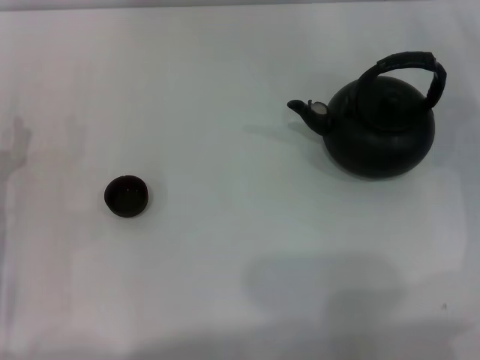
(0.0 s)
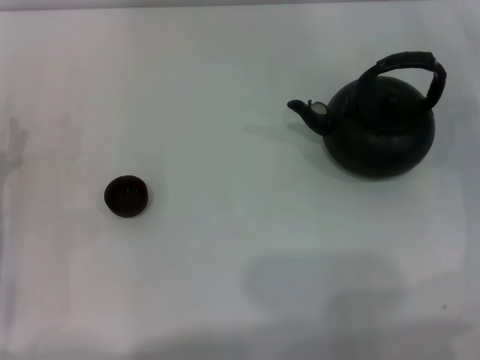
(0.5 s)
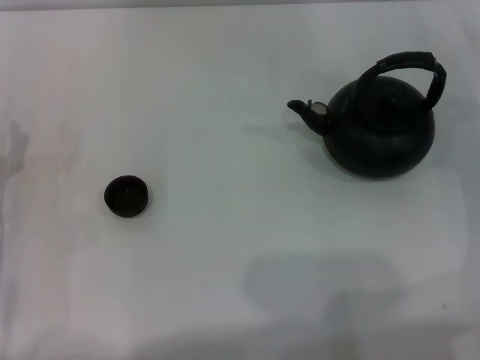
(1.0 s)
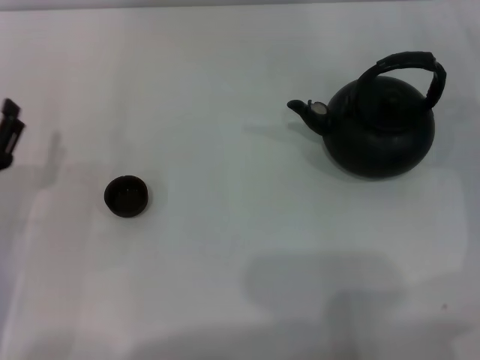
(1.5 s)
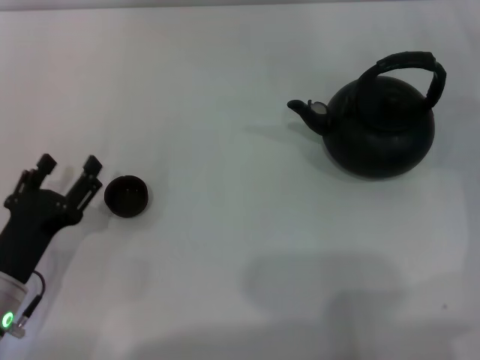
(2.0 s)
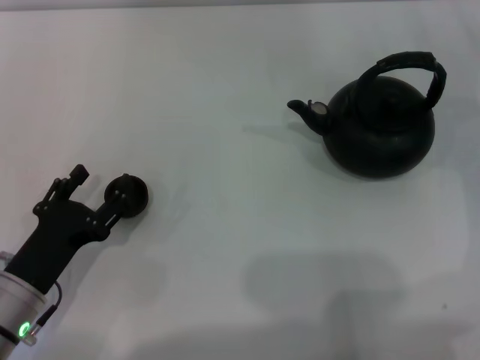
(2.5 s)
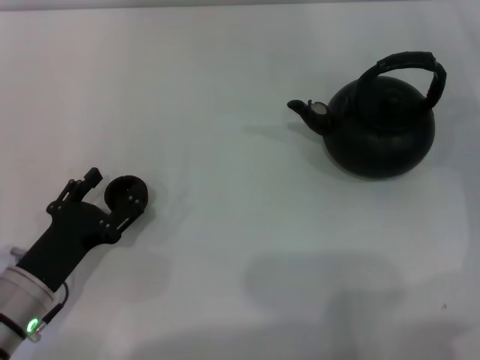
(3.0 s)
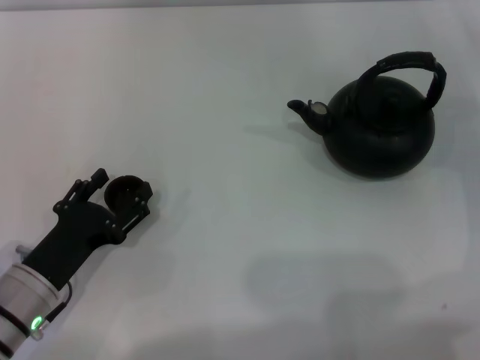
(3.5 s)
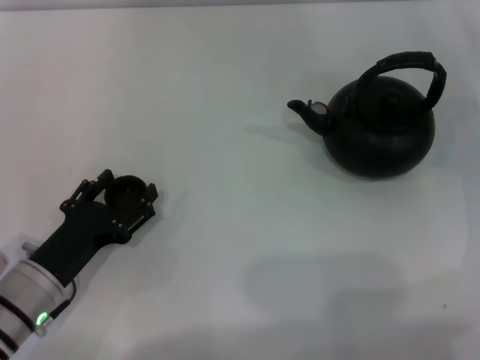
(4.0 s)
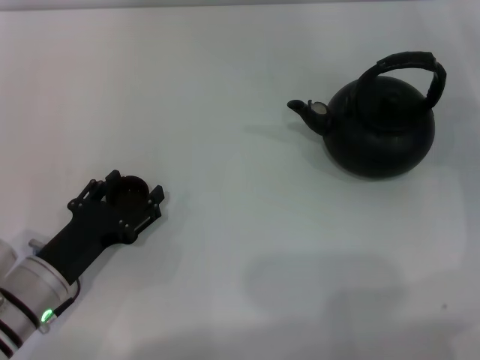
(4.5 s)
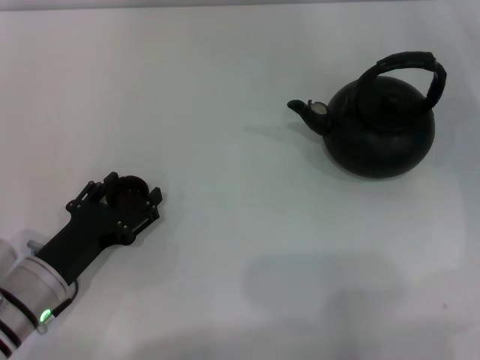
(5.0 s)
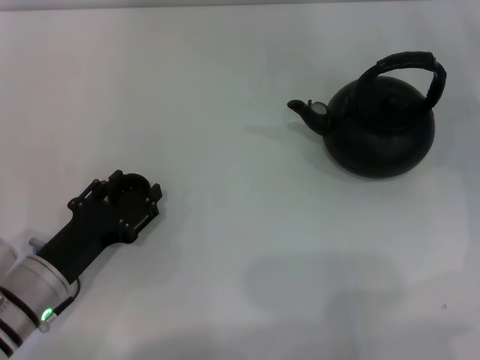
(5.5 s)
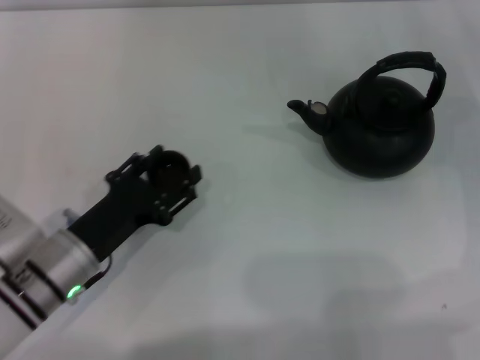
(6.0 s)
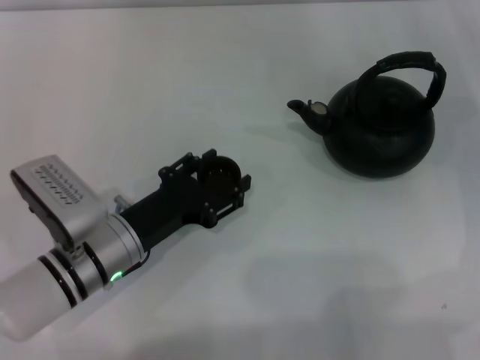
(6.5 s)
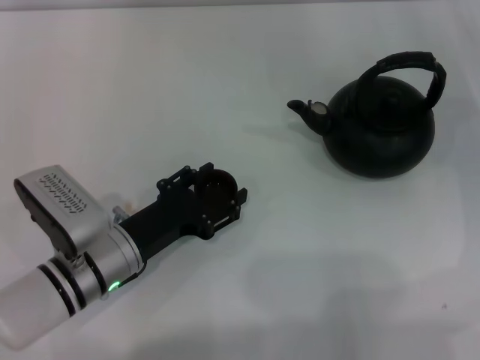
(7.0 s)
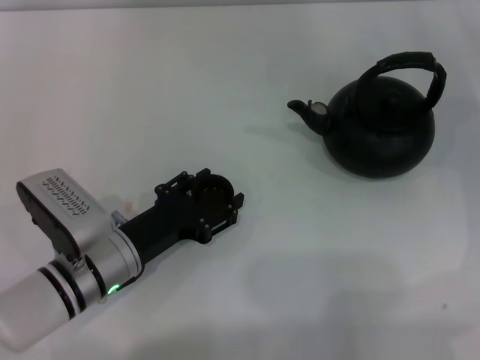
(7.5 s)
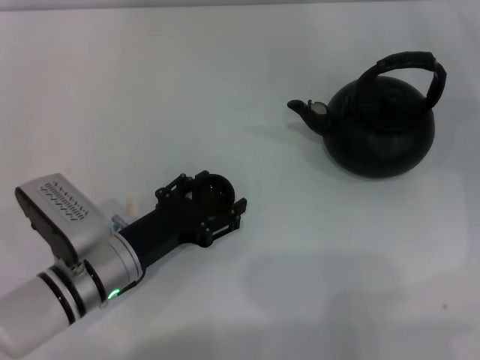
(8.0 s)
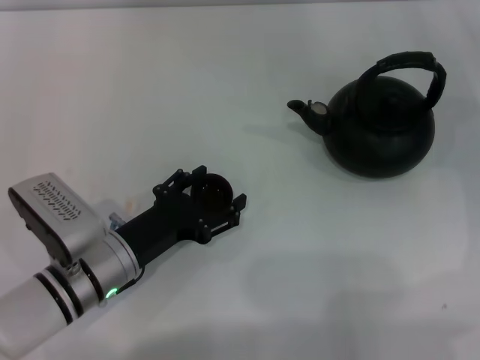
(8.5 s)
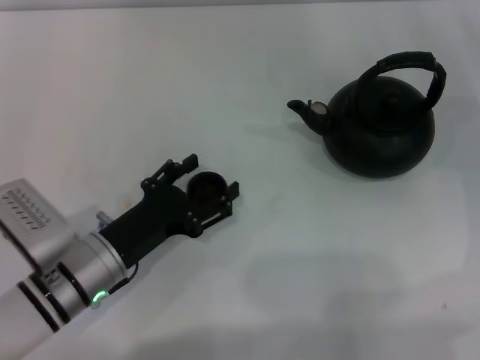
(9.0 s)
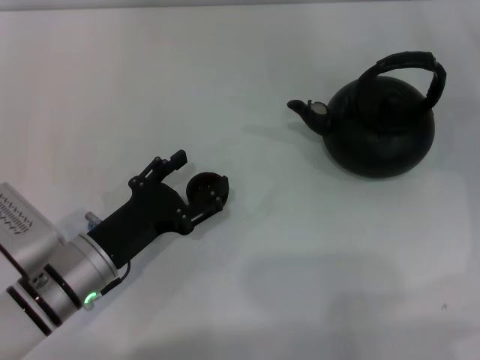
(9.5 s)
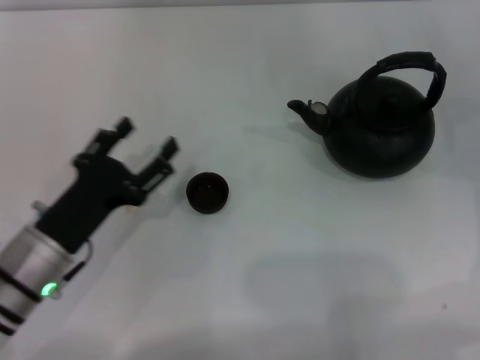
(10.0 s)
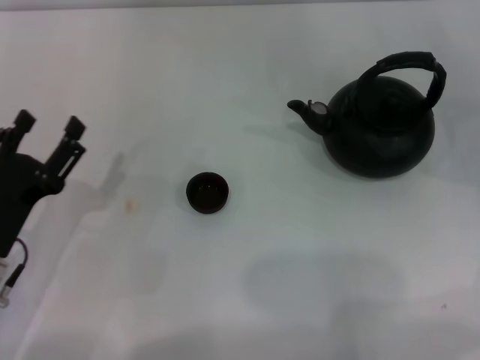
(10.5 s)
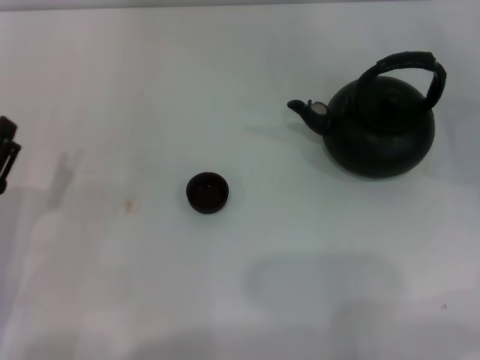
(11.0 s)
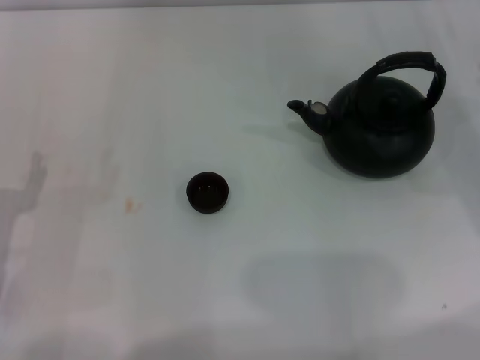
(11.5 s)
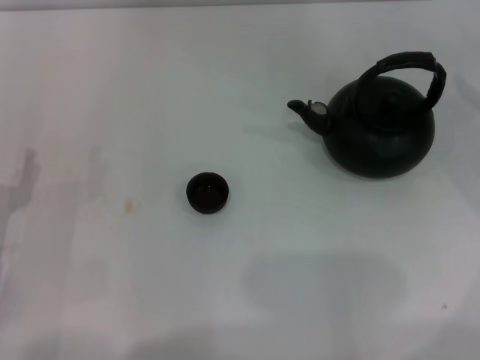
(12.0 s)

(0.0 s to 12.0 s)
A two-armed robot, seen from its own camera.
Task of the whole recording: Grasp the handle of the teapot with one hand and pour tea into the teacup.
Step, 0.0 s - 5.5 s: Pick up the teacup with the left gripper.
Step, 6.0 s - 9.5 s: Place the teacup in the center of view with the left gripper.
0.0 s - 2.0 s: The left gripper travels backward by roughly 5 cm.
2.0 s - 4.0 s: The grippers stay close to where they were, moving slightly.
4.0 s - 6.0 s: The left gripper closes its fingers.
6.0 s - 8.0 s: The left gripper opens.
8.0 s - 10.0 s: The left gripper ends up some 5 cm from where it was, and opens up.
10.0 s - 12.0 s: The right gripper heads upward, covering some 10 cm, while the left gripper goes about 10 cm to the left.

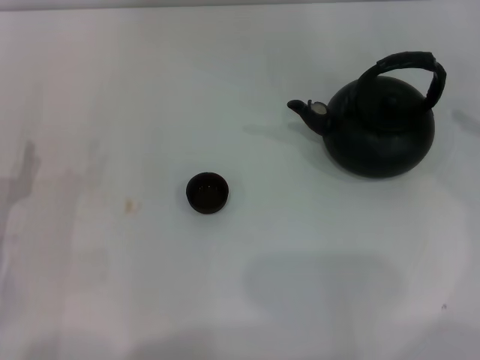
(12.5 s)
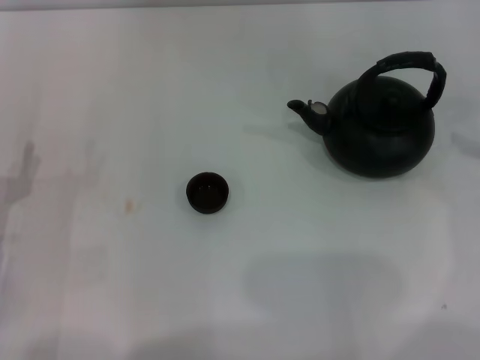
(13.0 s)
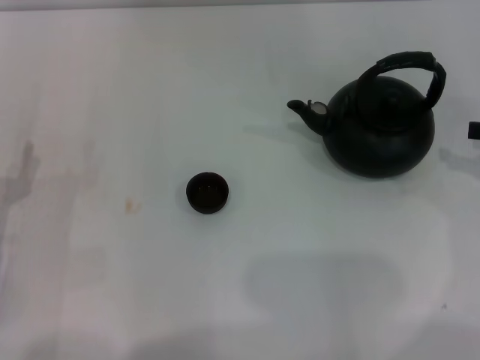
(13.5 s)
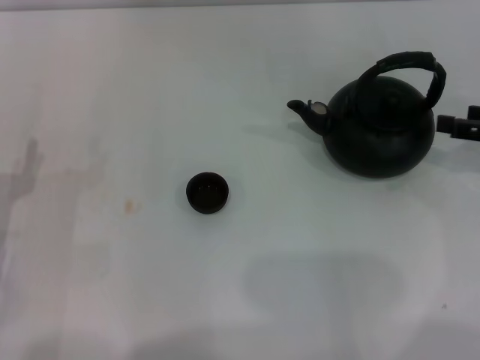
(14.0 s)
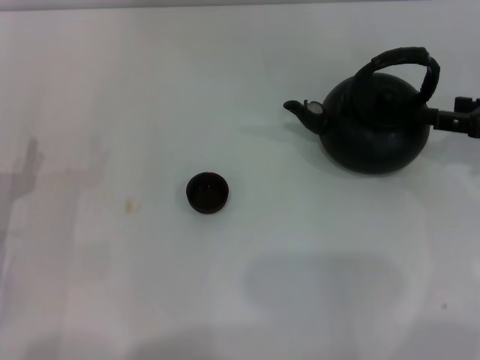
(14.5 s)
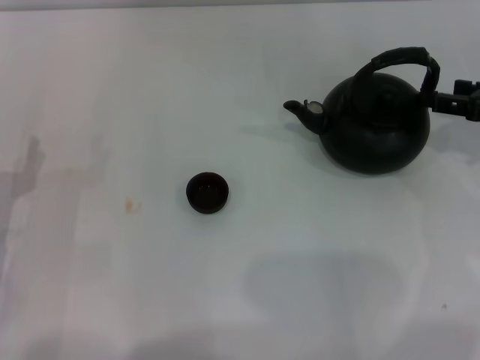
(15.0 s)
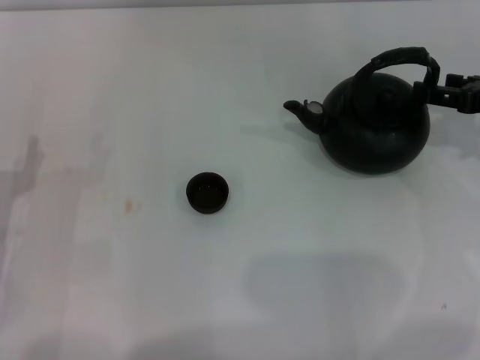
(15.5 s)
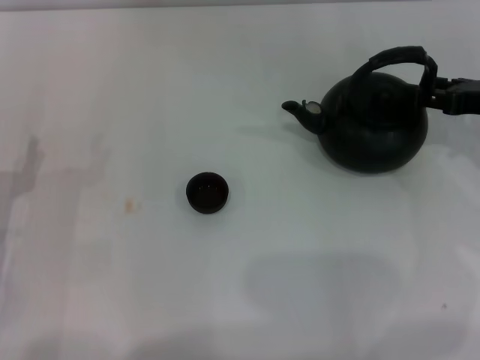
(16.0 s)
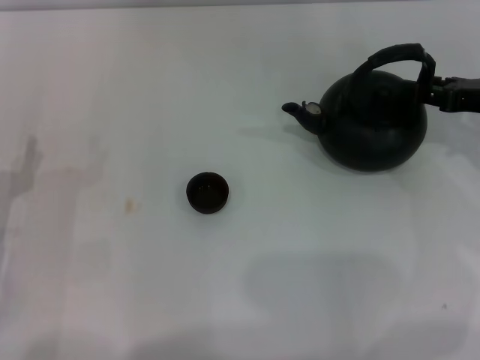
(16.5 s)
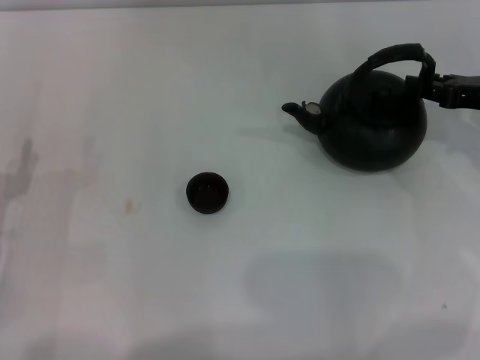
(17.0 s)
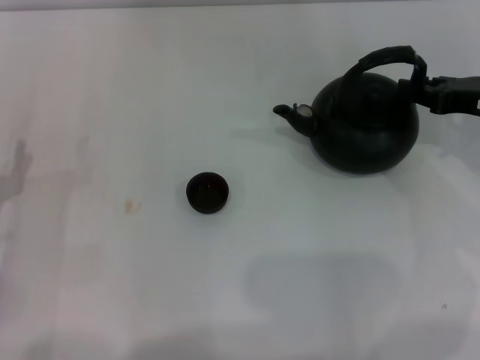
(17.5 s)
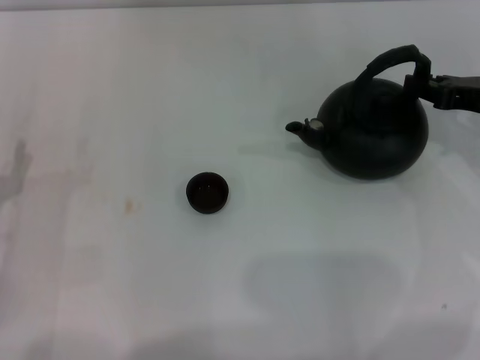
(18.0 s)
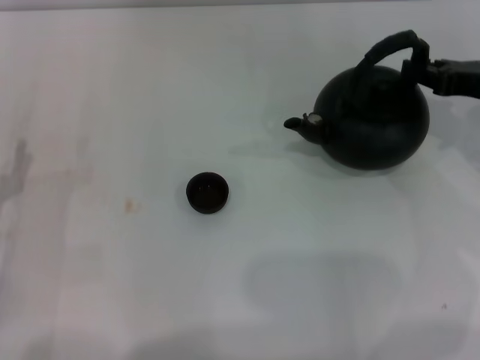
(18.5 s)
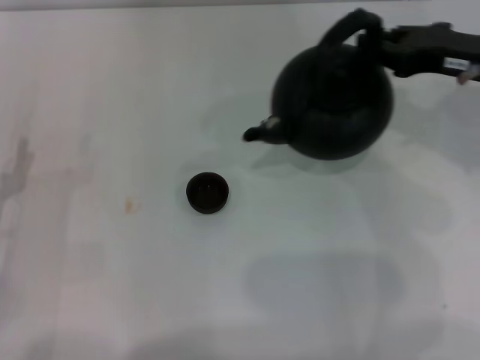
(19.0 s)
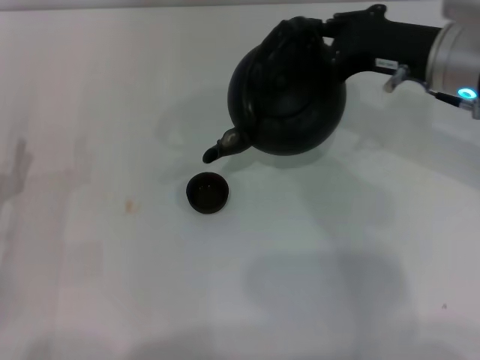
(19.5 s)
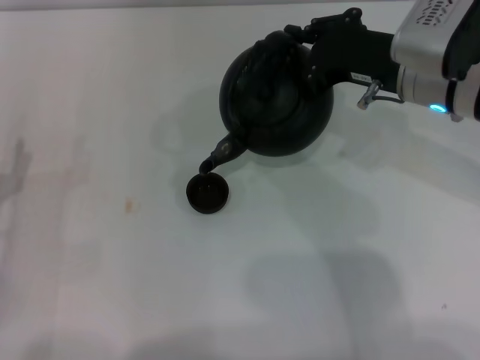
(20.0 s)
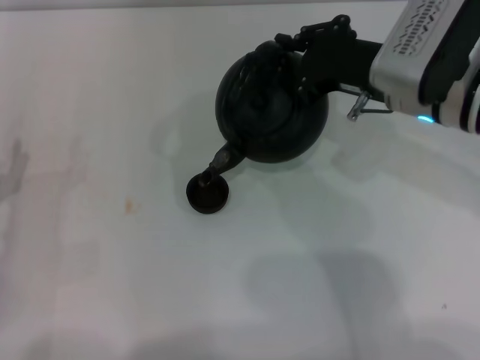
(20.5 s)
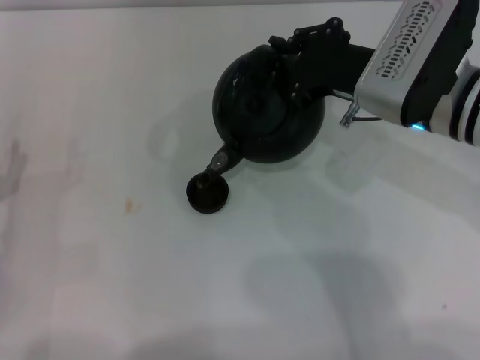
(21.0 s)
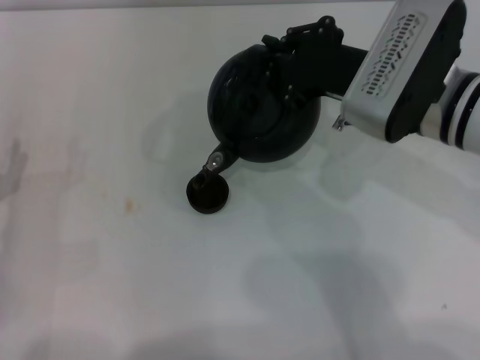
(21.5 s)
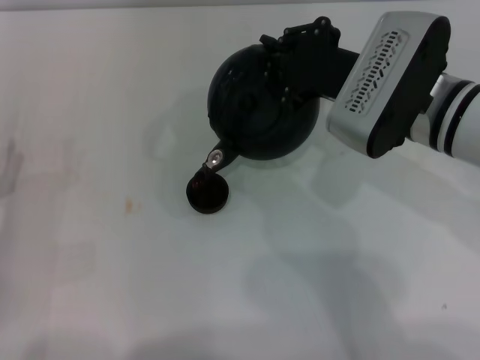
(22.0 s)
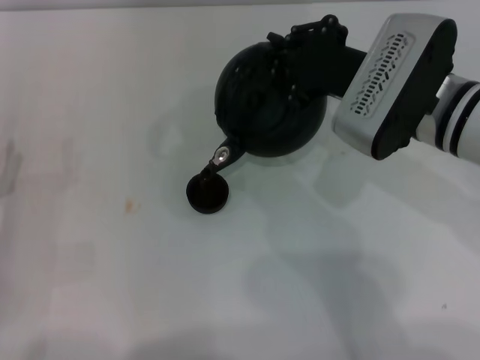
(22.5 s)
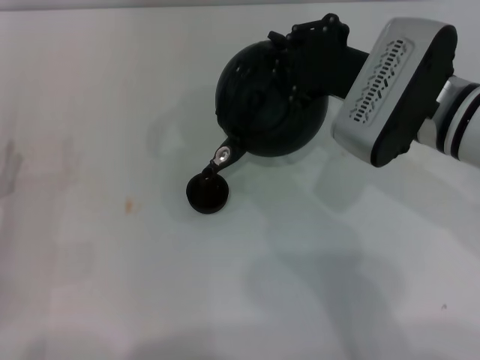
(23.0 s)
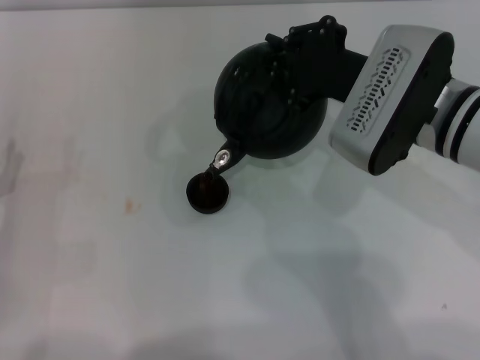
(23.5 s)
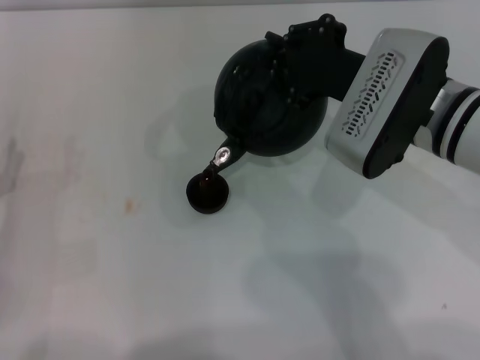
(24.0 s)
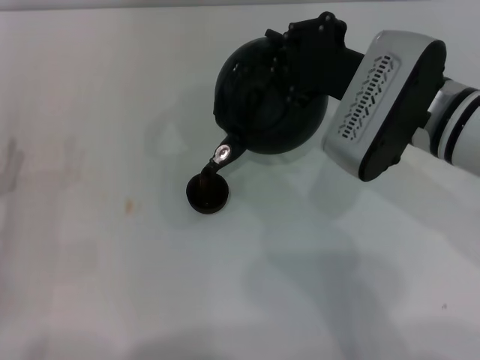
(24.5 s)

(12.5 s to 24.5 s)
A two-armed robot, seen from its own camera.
Task of the whole recording: Grasp the handle of the teapot with one hand and pour tea into the teacup.
Step, 12.5 s - 18.5 s: Pick up the teapot with the right gripper.
12.5 s - 14.5 s: The right gripper heads to the left, covering some 5 cm.
14.5 s - 16.5 s: The grippers move only a little.
16.5 s - 18.5 s: The right gripper closes up.
18.5 s - 20.5 s: The right gripper moves to the left, some 15 cm.
20.5 s - 22.5 s: The grippers make only small movements.
22.5 s - 24.5 s: The grippers move only a little.

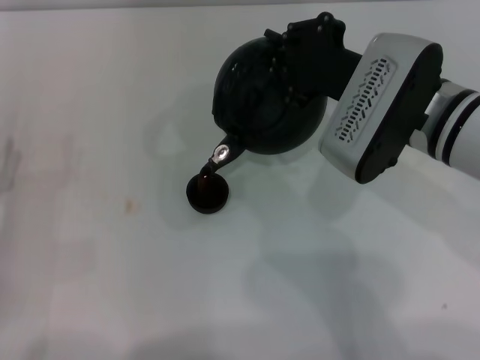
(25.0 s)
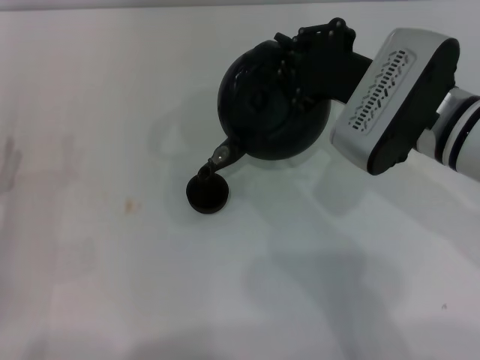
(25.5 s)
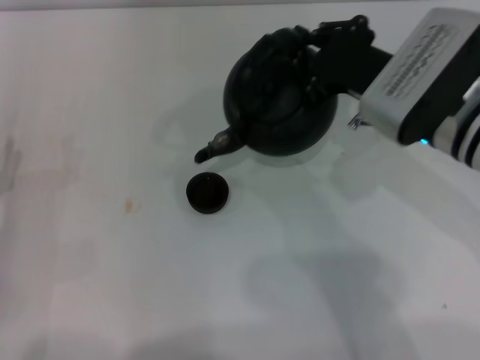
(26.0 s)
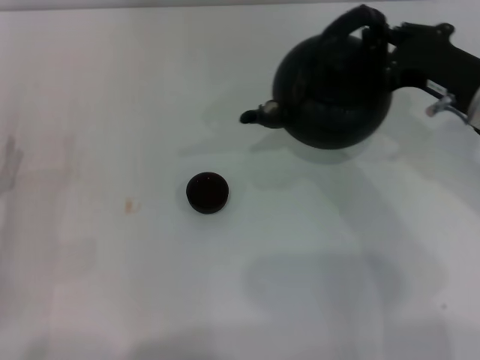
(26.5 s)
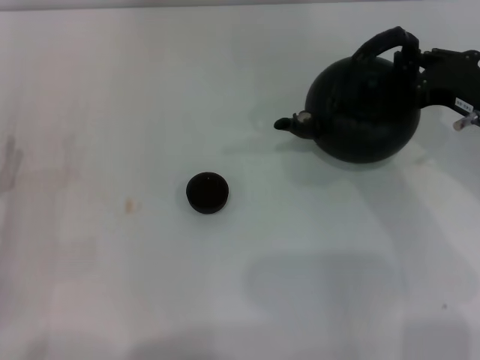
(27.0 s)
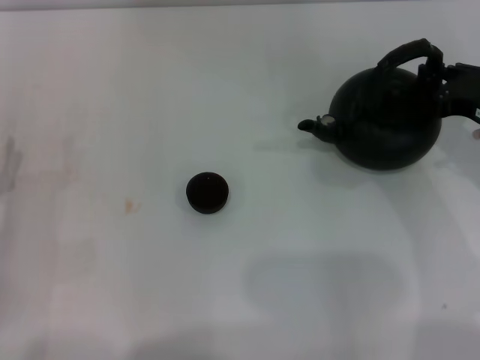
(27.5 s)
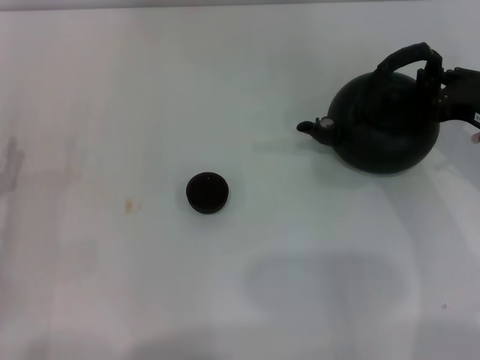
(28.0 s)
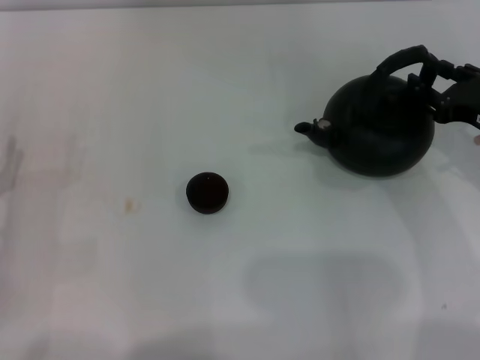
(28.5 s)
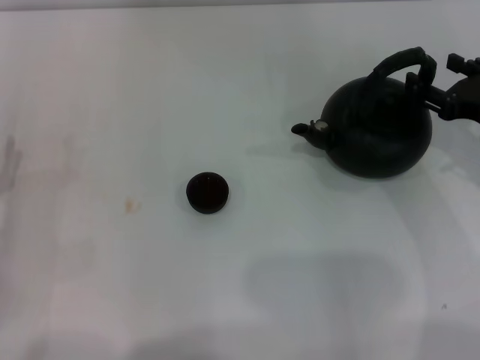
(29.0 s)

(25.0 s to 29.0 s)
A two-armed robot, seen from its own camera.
Task of the whole recording: Grasp the handle of the teapot with one hand and pour tea into the teacup.
25.0 s - 27.0 s: The right gripper travels to the right by some 15 cm.
27.0 s - 29.0 s: The right gripper opens up.
